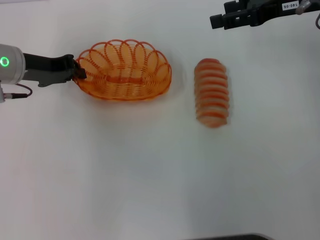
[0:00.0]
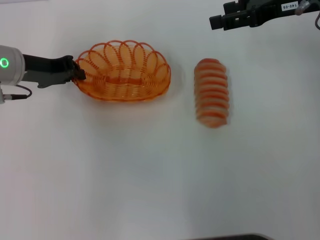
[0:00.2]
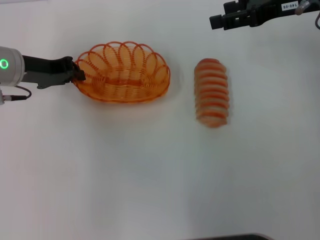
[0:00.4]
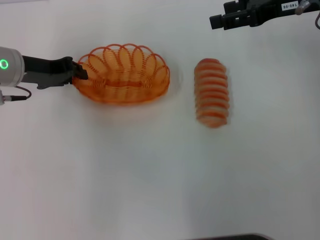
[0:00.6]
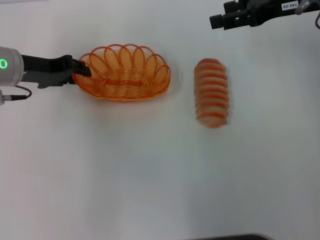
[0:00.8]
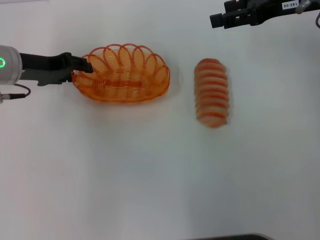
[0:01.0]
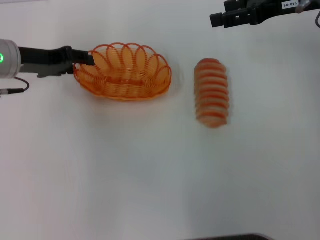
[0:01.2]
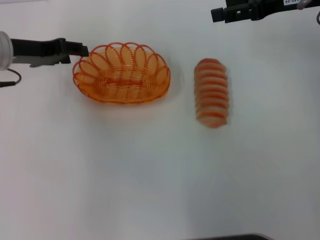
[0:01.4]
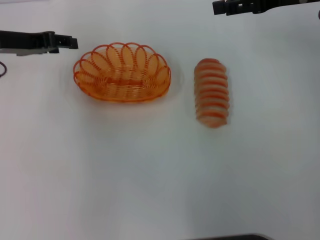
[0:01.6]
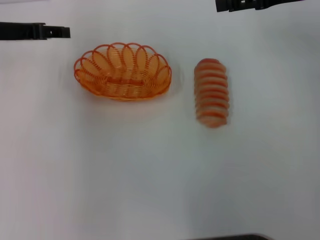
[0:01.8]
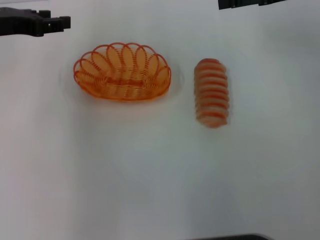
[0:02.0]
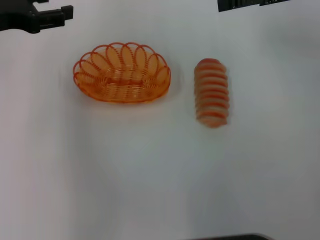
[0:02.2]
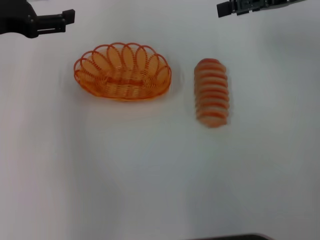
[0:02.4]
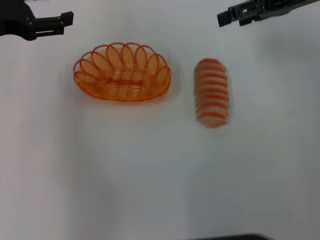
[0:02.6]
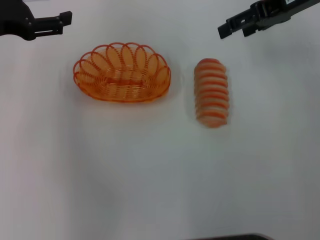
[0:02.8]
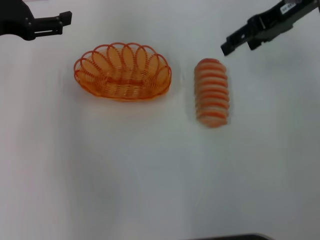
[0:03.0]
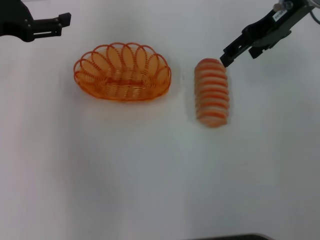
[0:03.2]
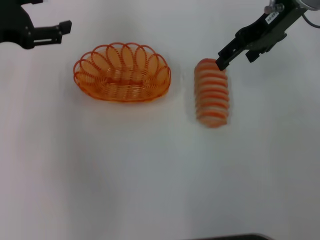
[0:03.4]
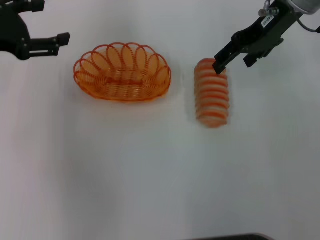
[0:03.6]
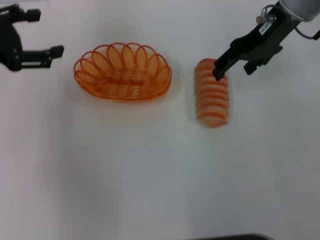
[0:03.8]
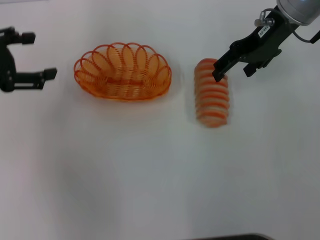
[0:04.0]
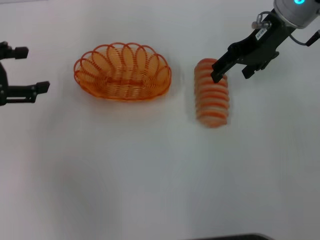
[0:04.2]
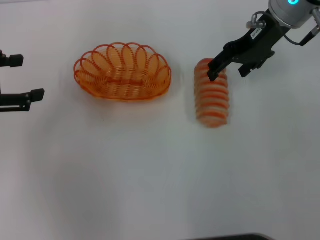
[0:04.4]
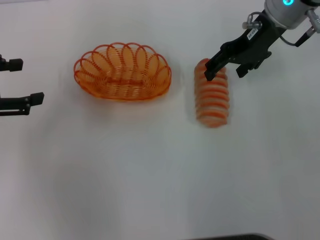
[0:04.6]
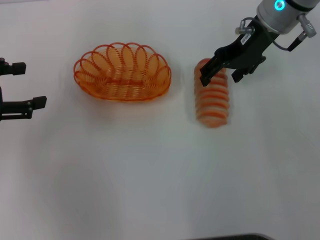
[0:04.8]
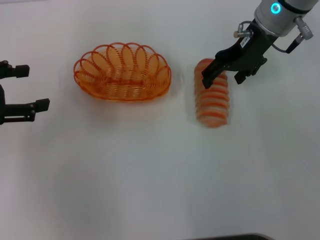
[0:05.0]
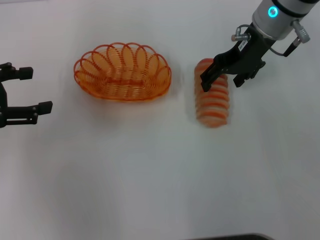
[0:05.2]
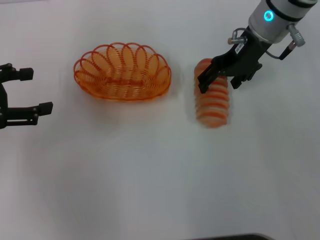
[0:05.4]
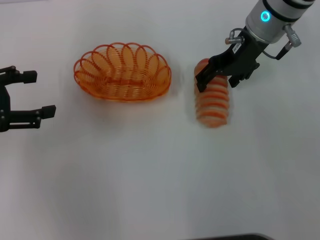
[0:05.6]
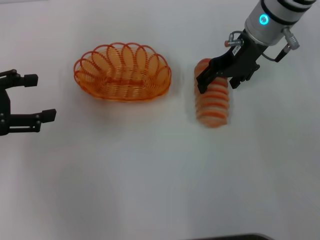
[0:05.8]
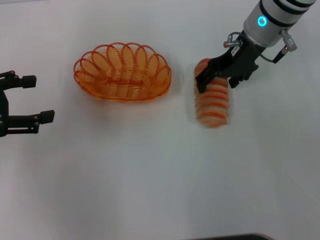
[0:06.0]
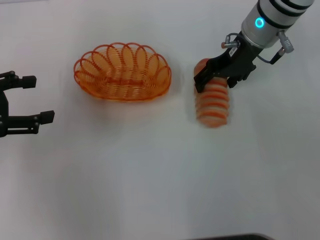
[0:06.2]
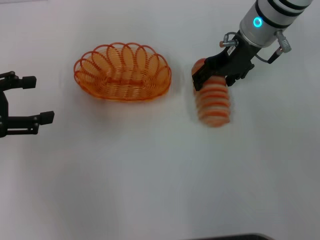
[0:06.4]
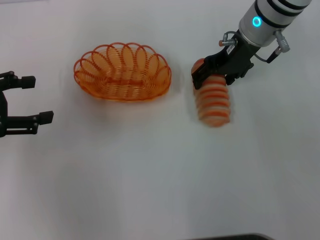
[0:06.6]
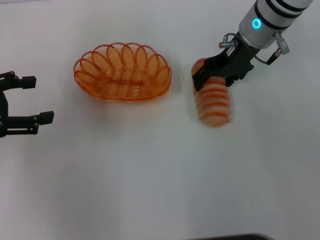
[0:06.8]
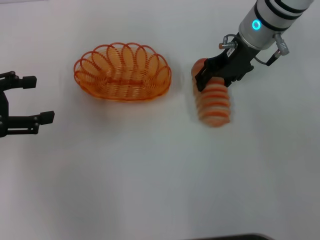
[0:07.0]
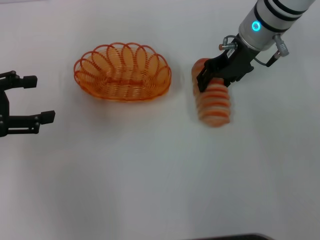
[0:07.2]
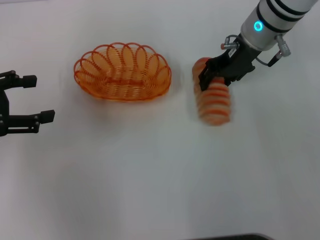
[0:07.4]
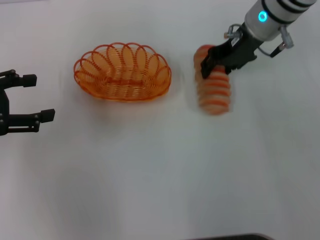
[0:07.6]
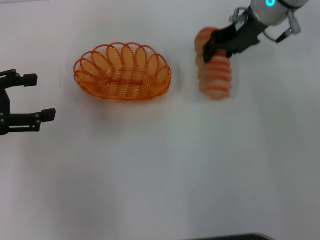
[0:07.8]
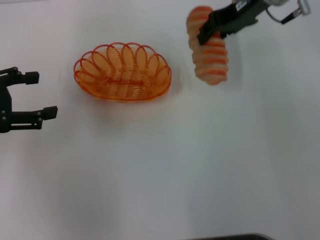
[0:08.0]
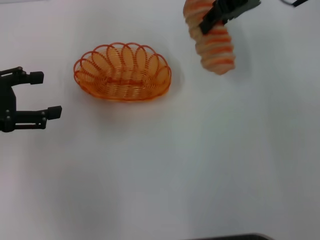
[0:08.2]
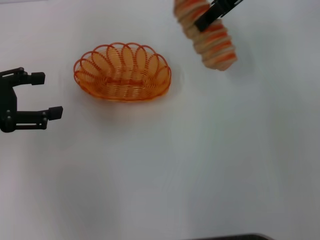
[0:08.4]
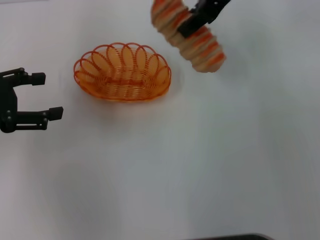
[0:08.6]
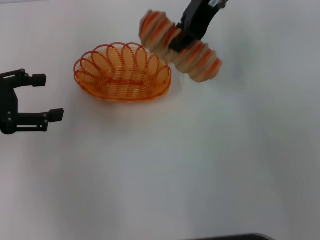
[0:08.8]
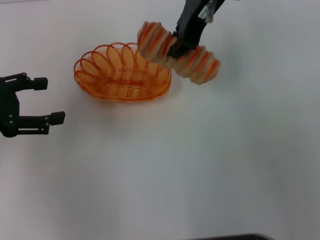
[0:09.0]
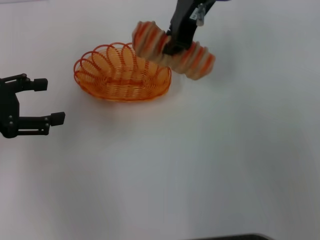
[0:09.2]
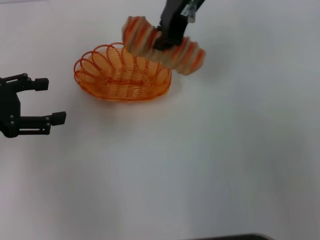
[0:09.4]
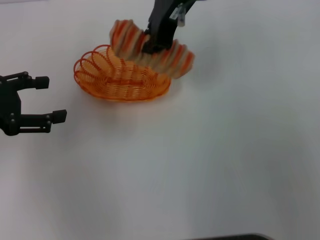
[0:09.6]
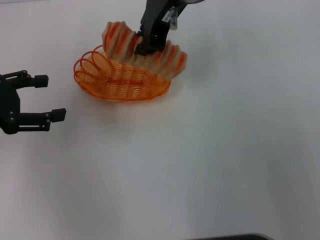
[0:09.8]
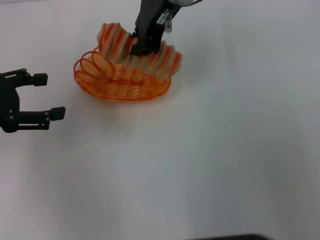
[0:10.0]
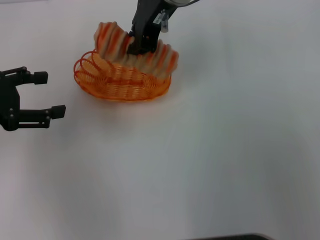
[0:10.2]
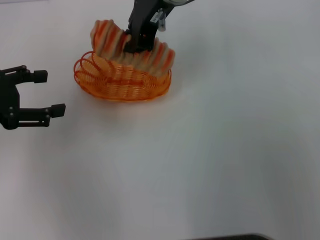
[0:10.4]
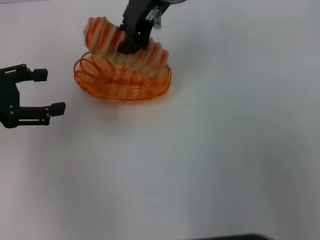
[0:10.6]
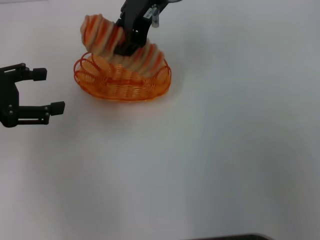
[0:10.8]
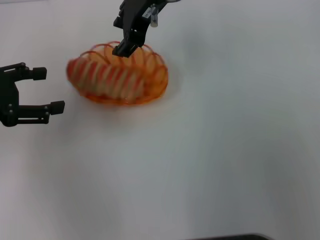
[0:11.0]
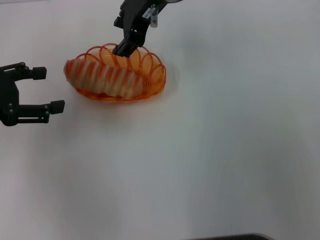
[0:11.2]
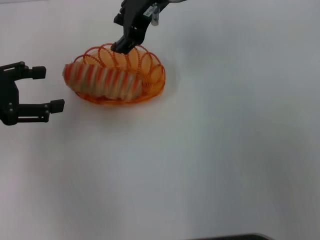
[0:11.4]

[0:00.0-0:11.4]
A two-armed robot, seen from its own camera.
Step, 0:01.8 to 0:07.8: Pick up the long bread with the right gripper.
0:00.0 to 0:01.4: The left gripper opens.
0:01.4 to 0:02.8: The left gripper travels upward by about 5 cm, and opens up.
0:02.8 to 0:04.2: The left gripper changes place by roughly 5 cm; the right gripper travels to the left by approximately 5 cm.
0:04.2 to 0:07.2: The grippers make only small movements.
0:07.2 to 0:08.6: The right gripper is displaced upward by approximately 10 cm, and closes up.
0:08.6 to 0:10.0: The right gripper shifts about 10 cm to the left.
0:10.0 to 0:11.4: The right gripper opens its fingers.

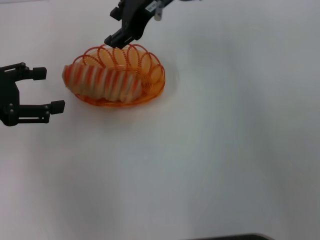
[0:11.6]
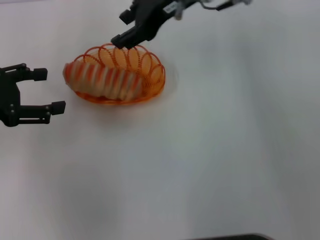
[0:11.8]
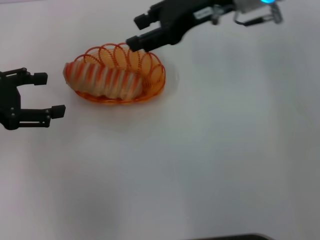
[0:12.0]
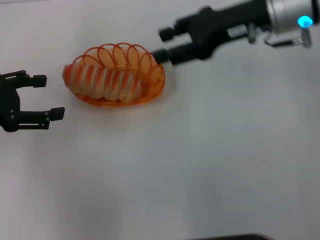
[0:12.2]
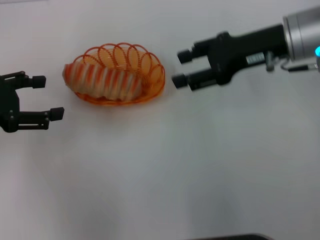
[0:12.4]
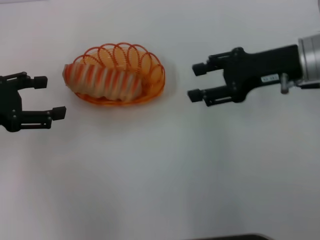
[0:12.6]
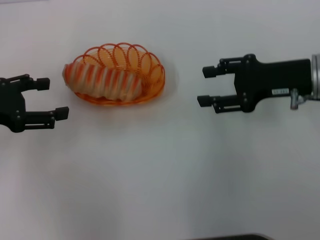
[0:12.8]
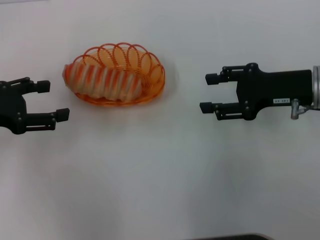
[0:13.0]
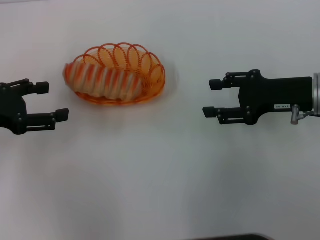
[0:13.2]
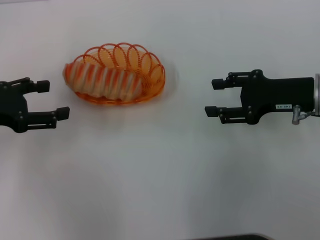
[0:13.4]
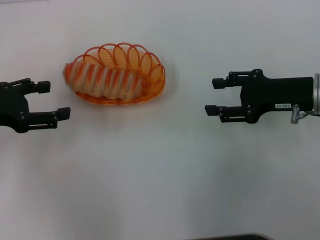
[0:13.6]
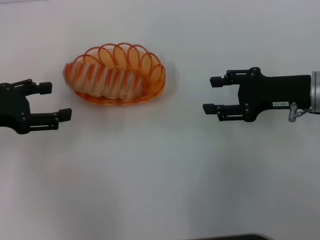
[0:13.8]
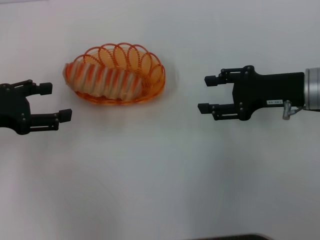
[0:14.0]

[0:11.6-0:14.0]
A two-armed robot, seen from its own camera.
0:11.6 to 0:12.8: The right gripper shifts some 25 cm to the right, downward and backward.
0:12.8 to 0:14.0: The grippers make only small movements.

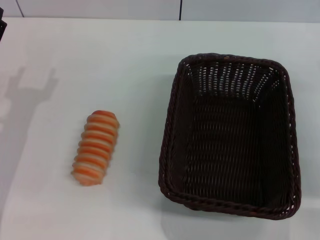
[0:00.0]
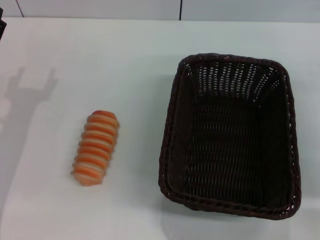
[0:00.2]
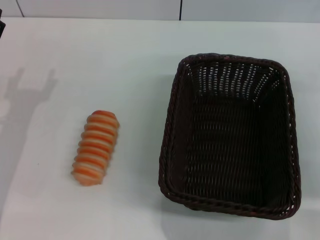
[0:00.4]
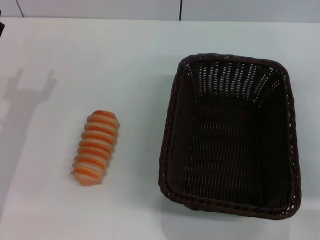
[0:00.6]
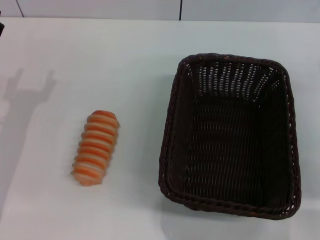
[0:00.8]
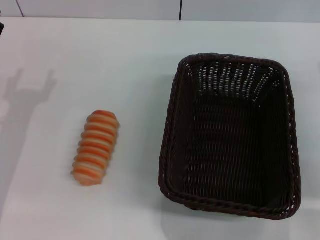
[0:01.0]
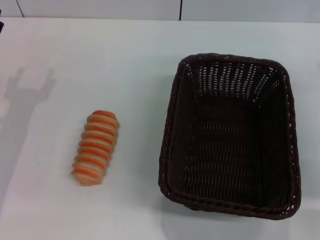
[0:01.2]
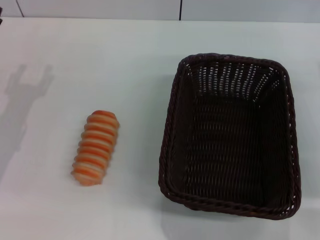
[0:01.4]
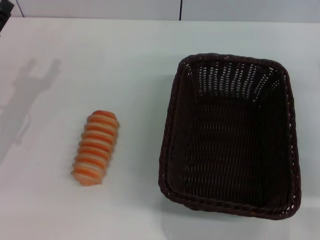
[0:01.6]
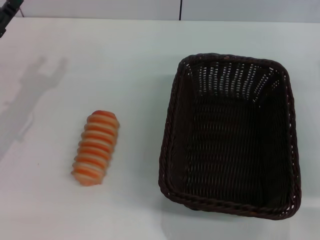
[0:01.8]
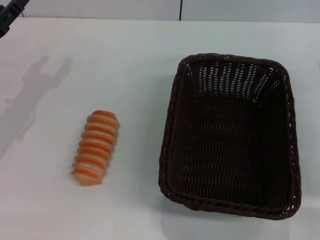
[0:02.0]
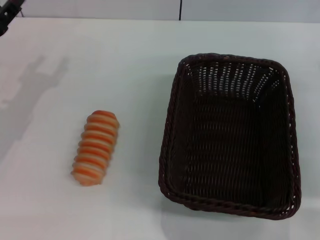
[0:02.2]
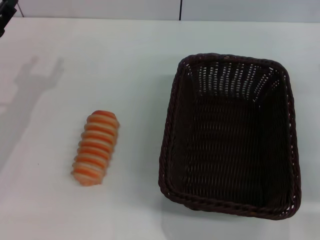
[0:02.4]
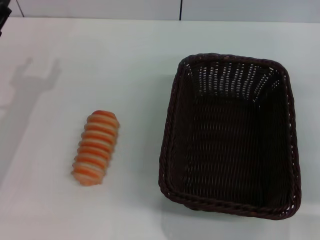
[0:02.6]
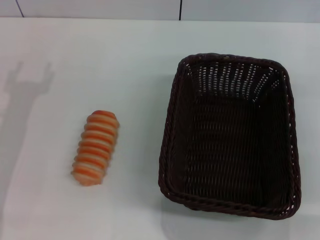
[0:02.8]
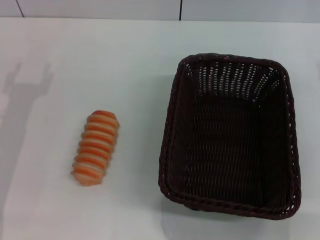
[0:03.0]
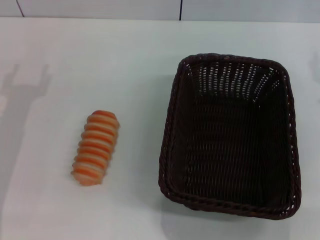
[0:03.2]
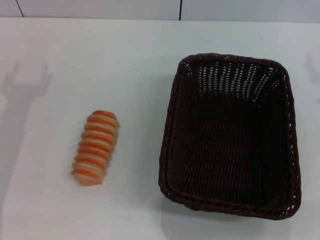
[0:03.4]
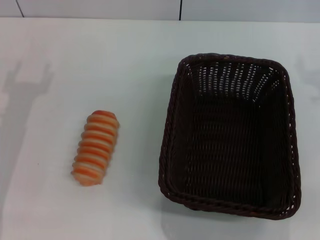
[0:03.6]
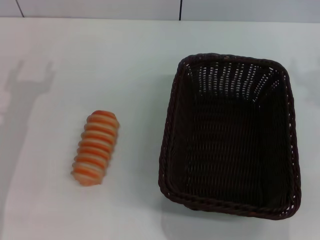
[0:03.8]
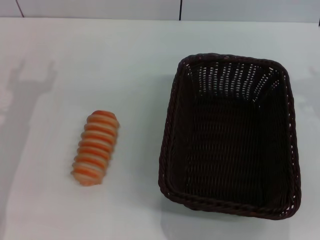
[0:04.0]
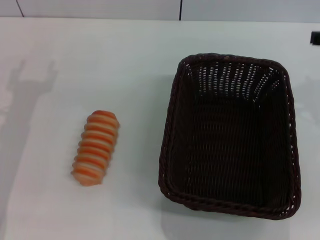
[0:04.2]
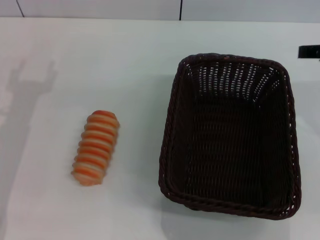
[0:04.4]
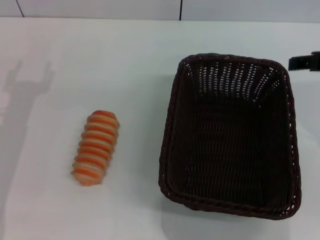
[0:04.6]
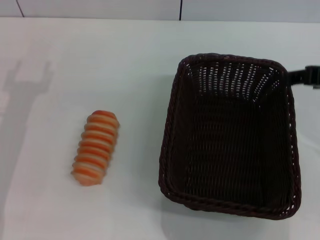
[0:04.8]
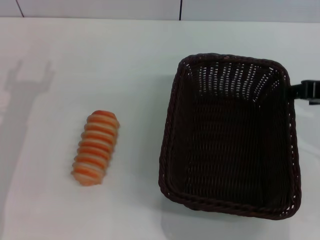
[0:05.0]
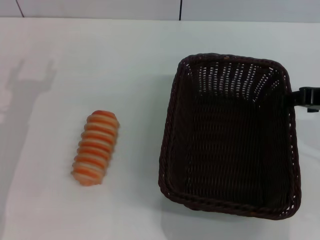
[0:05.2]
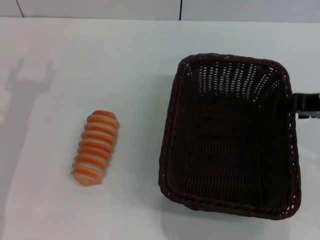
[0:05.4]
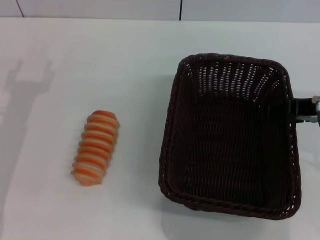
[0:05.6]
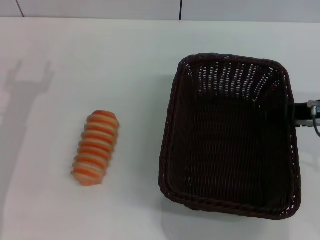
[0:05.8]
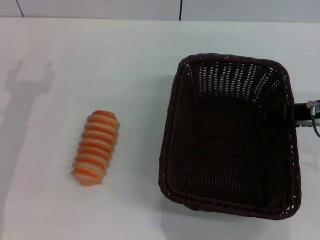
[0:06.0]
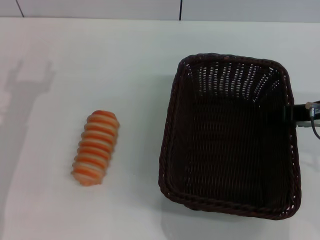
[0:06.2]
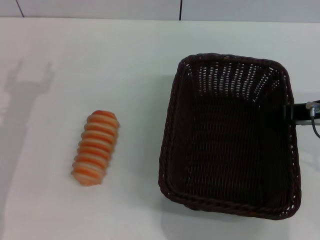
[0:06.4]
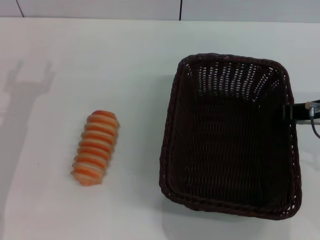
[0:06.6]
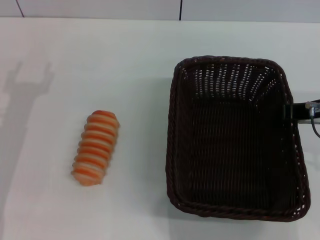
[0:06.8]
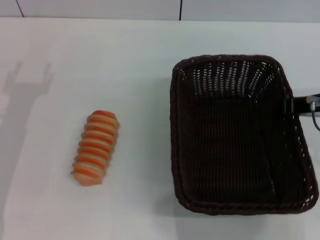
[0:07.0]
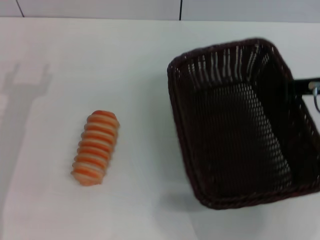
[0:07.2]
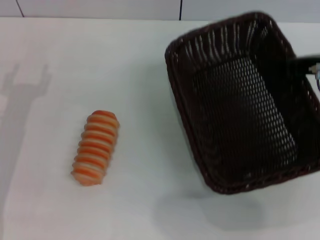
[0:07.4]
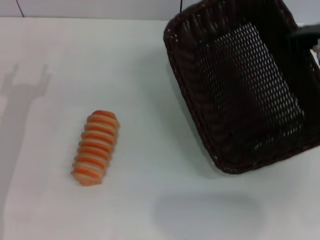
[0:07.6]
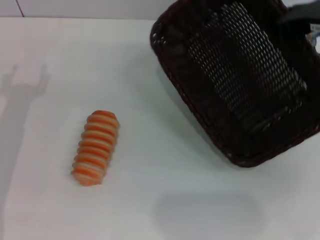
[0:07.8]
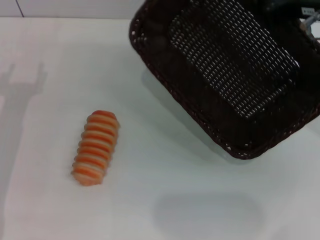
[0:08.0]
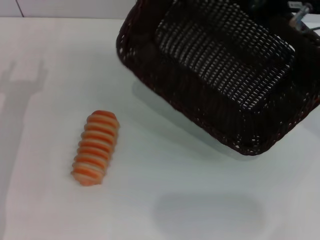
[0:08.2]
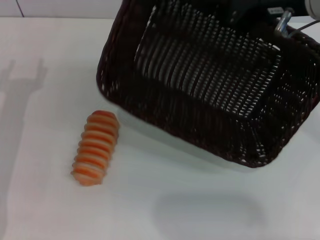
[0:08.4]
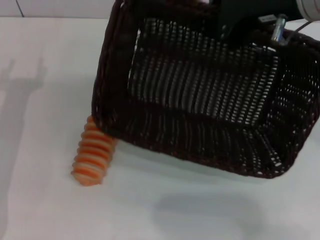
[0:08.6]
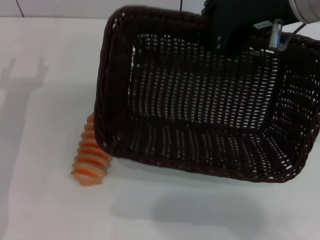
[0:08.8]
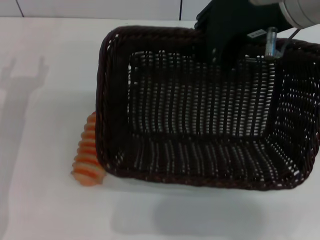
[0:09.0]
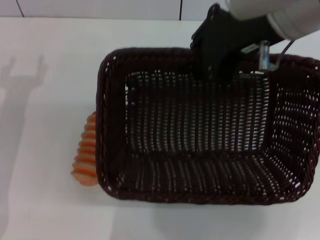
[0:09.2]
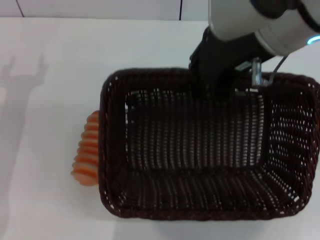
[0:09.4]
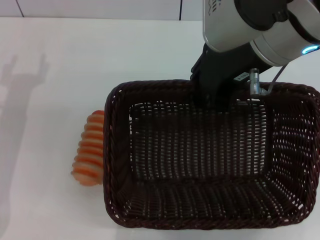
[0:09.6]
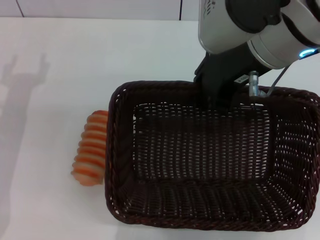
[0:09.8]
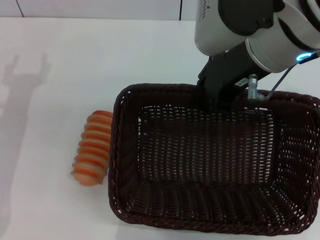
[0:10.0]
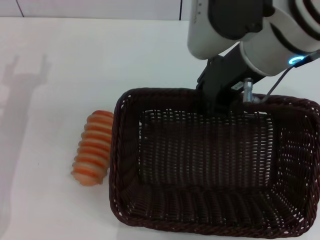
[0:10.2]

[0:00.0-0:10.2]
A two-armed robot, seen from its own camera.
Step, 0:00.0 to 0:07.6: Pick up the dark basket with the right gripper.
0:04.4 to 0:05.8: The right gripper is displaced downward by about 5 cm.
0:05.8 to 0:07.2: The right gripper closes its fingers.
0:07.2 to 0:08.8: The right gripper goes approximately 15 cm upward and to the left.
0:08.8 to 0:10.2: The right gripper shifts by about 5 cm.
